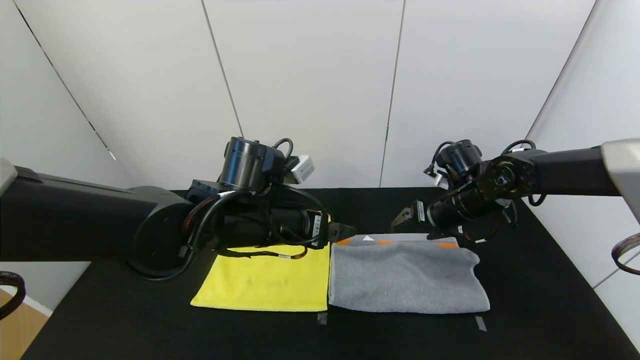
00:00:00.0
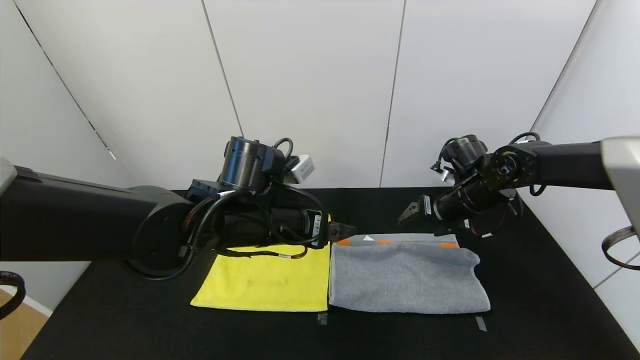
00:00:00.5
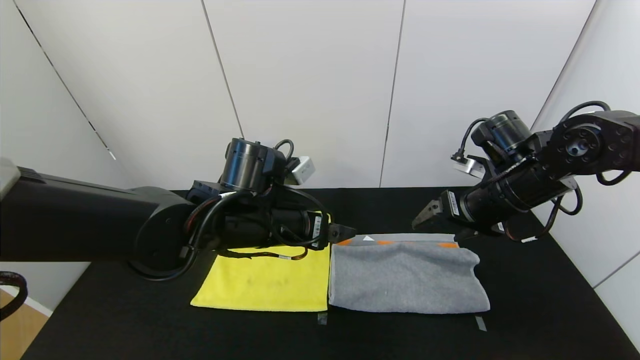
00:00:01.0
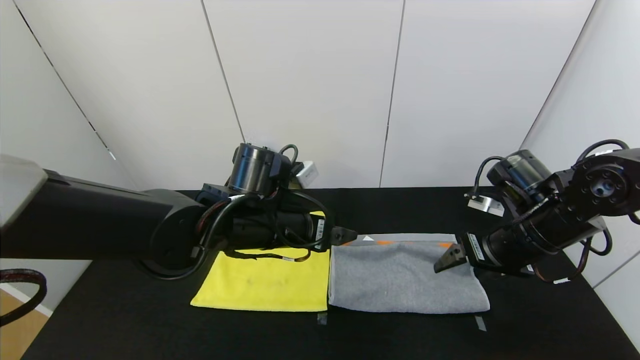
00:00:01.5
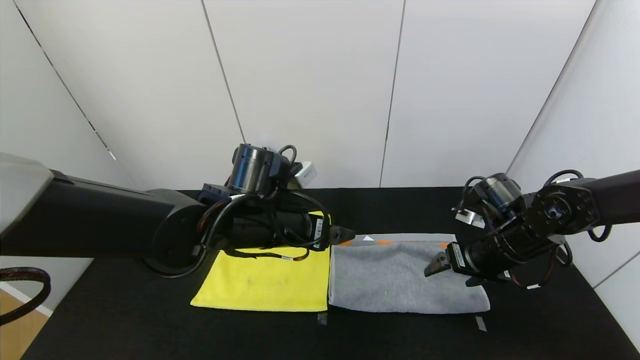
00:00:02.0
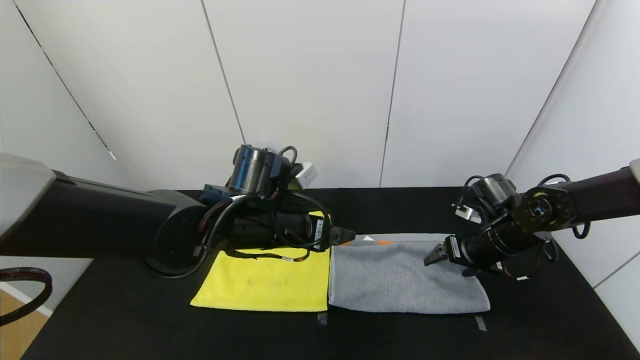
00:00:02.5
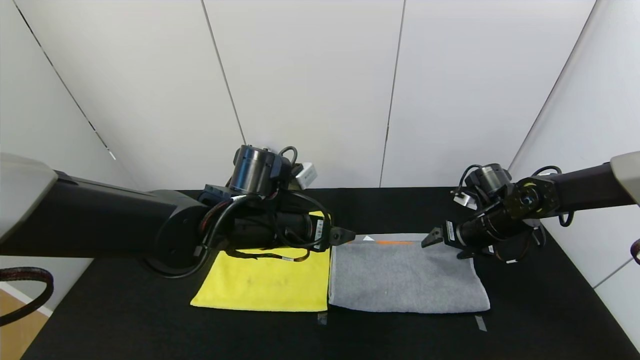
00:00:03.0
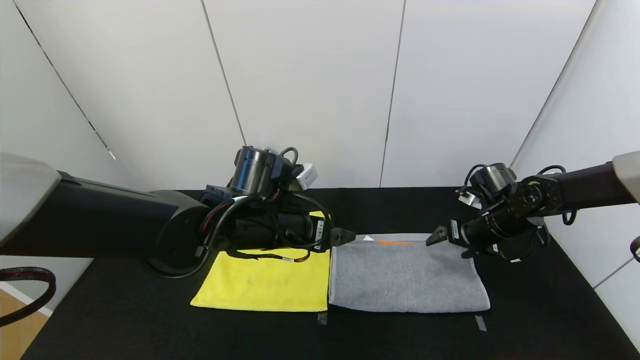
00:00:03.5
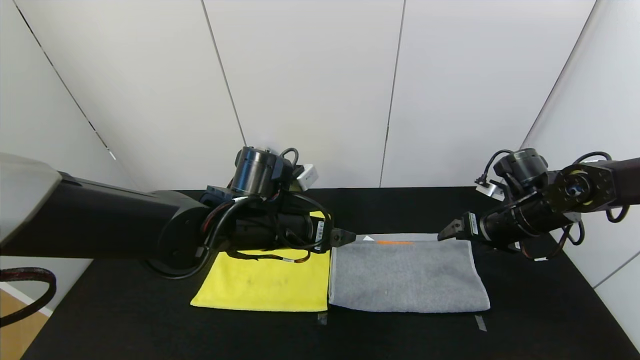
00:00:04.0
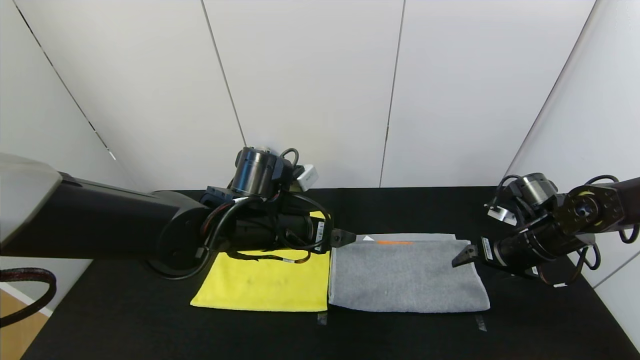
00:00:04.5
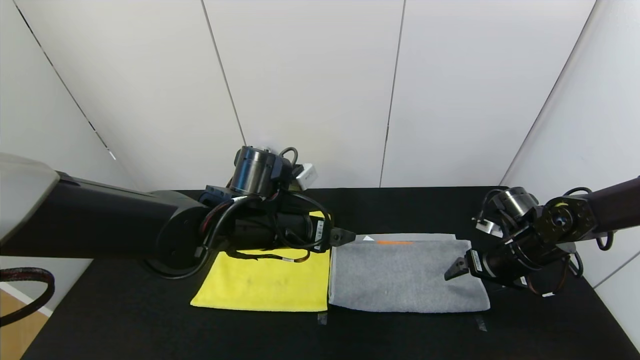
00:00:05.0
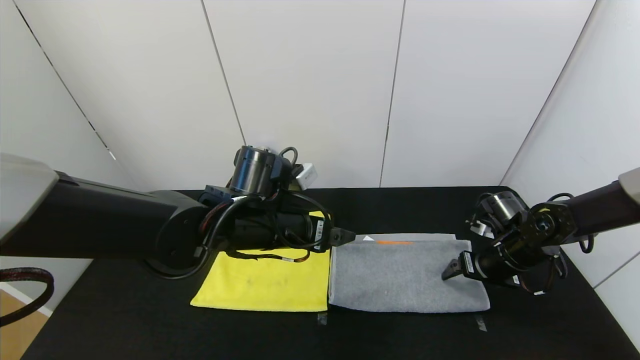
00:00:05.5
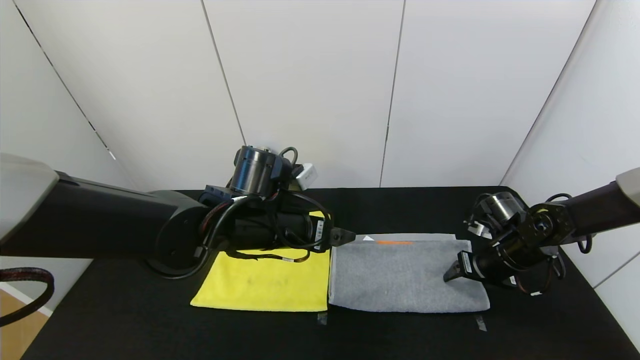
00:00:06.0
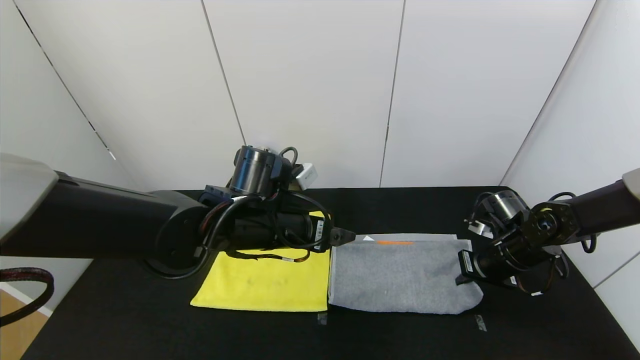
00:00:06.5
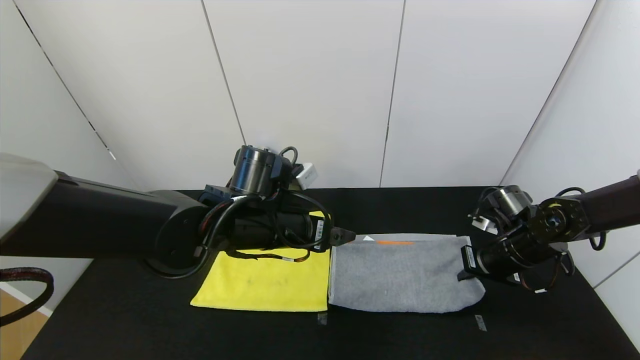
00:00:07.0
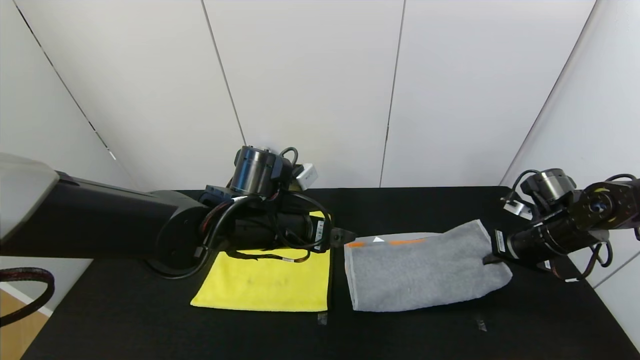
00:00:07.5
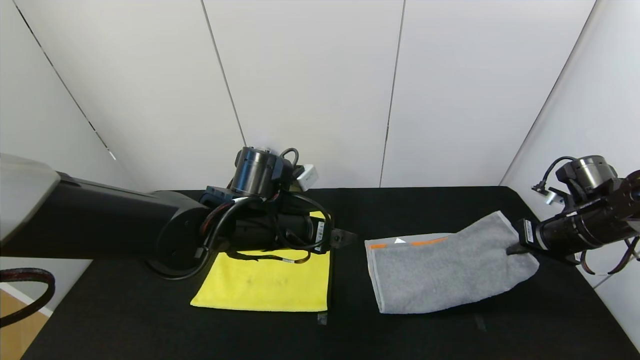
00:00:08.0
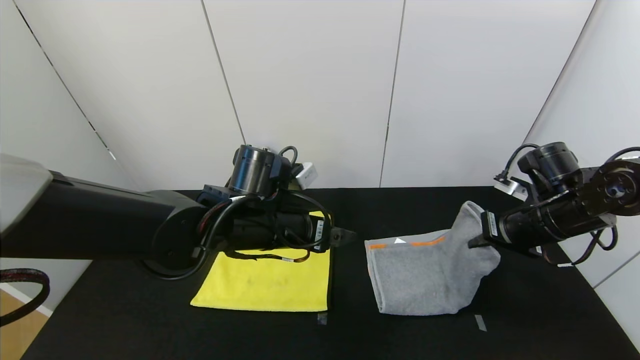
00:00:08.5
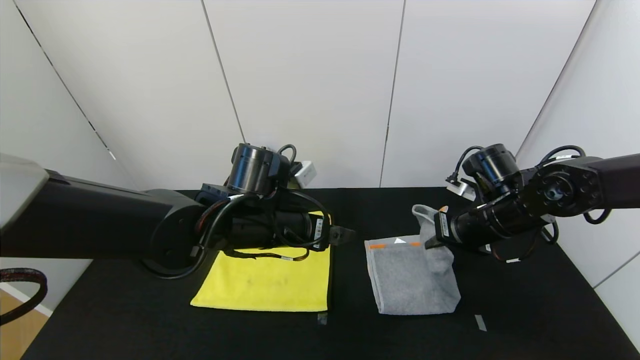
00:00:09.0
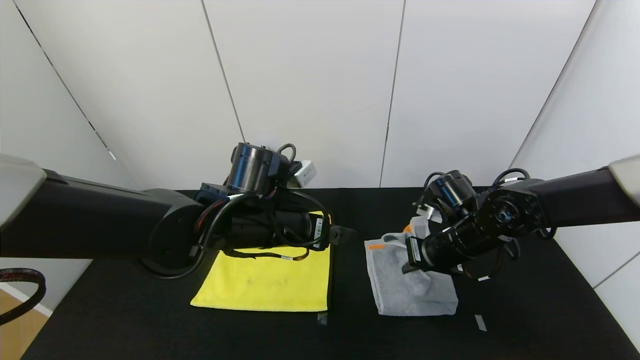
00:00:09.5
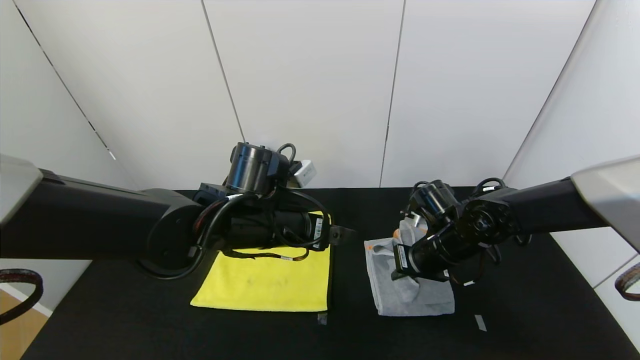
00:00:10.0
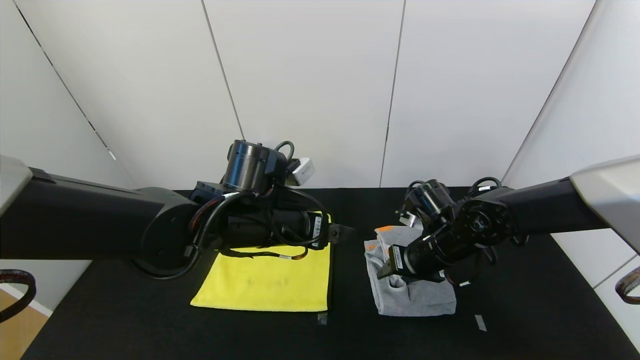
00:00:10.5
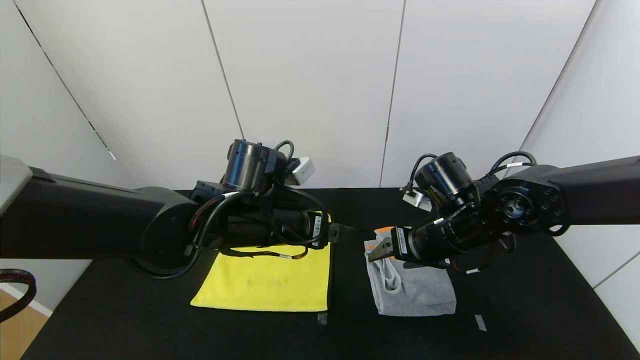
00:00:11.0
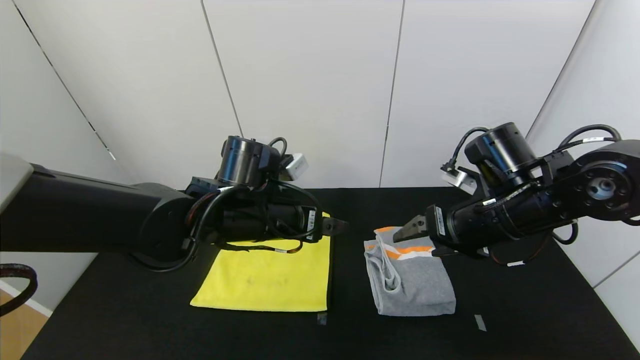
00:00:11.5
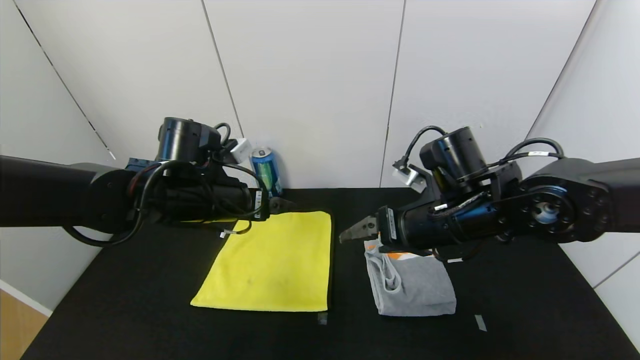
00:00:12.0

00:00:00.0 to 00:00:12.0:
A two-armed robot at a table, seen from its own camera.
Task of the whole recording: Use the gripper to fold the yellow towel and grey towel in half twice,then put the yellow towel on the grey towel.
Step, 00:00:00.0 to 00:00:04.0: Press the gray towel with the right gripper.
Step, 00:00:04.5 to 00:00:10.5: Fold the gray towel from right to left with right gripper.
00:00:00.0 to 00:00:02.0: The right gripper moves backward, roughly 5 cm.
00:00:02.0 to 00:00:04.0: The right gripper shifts by approximately 5 cm.
00:00:04.0 to 00:00:06.0: The right gripper moves downward, about 10 cm.
00:00:06.0 to 00:00:08.0: The right gripper shifts roughly 10 cm upward and to the right, and closes up.
00:00:08.0 to 00:00:10.0: The right gripper moves to the left, about 20 cm.
00:00:10.0 to 00:00:12.0: The left gripper moves to the left, roughly 10 cm. Meanwhile the right gripper travels upward and backward by roughly 10 cm, and opens.

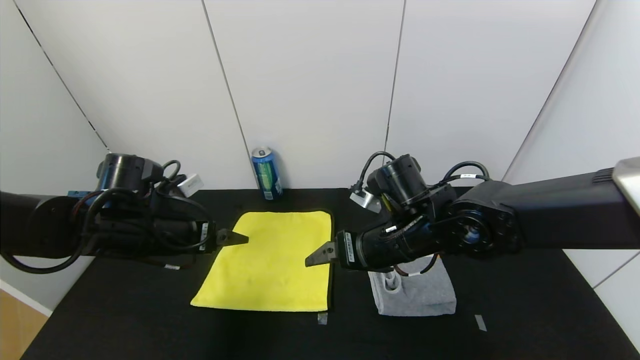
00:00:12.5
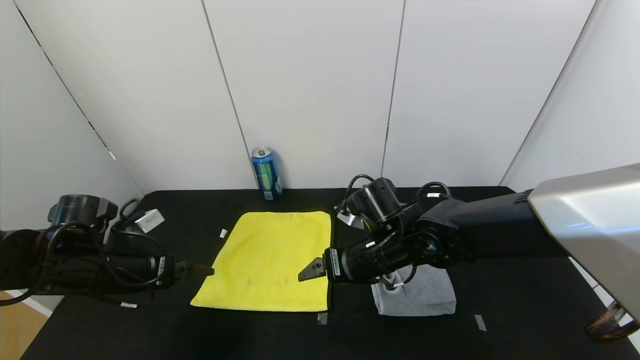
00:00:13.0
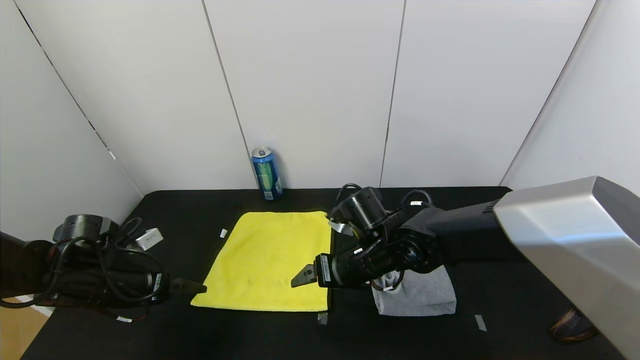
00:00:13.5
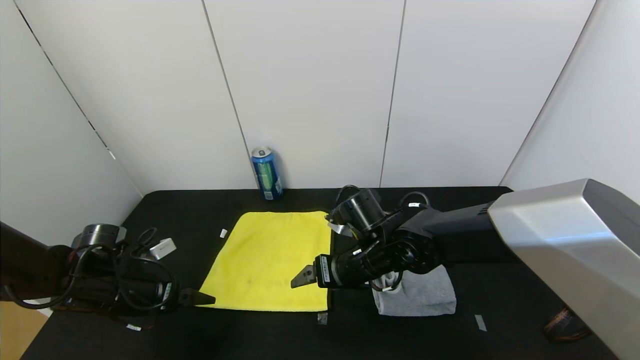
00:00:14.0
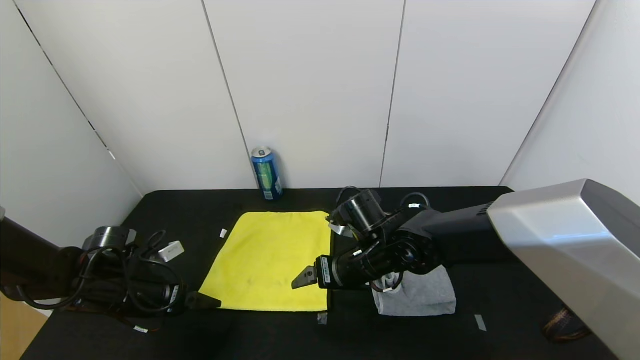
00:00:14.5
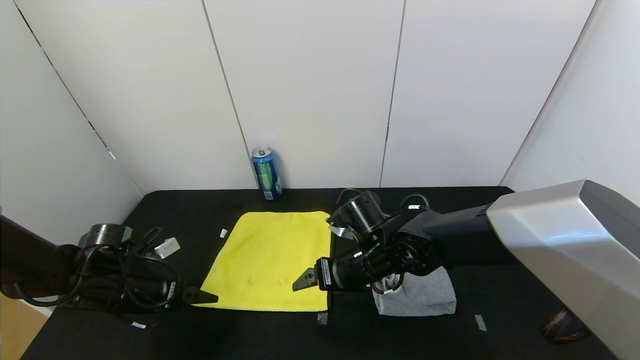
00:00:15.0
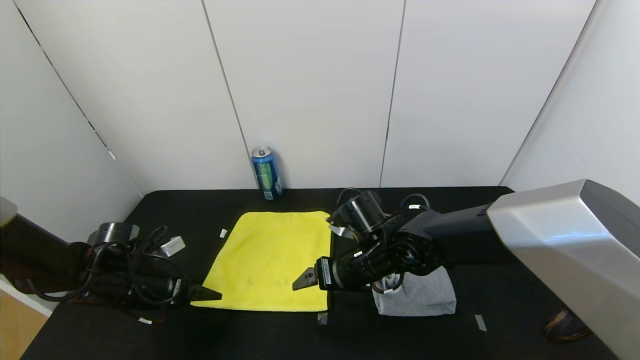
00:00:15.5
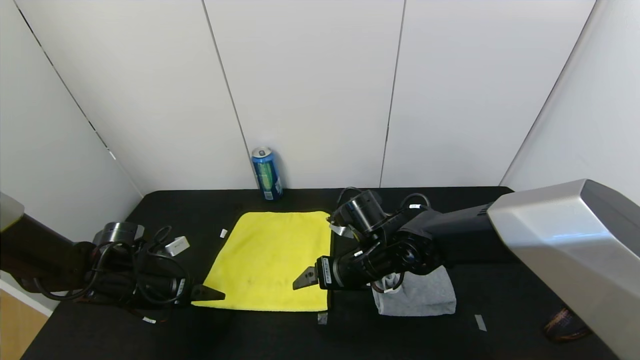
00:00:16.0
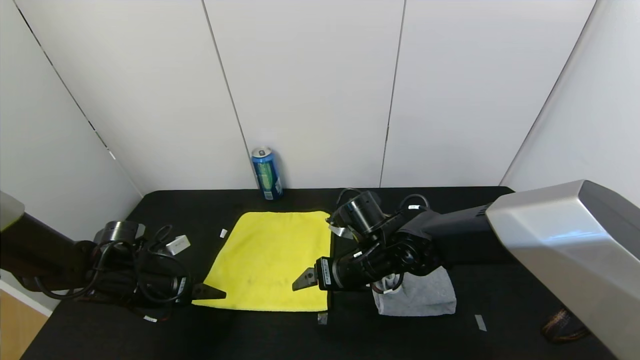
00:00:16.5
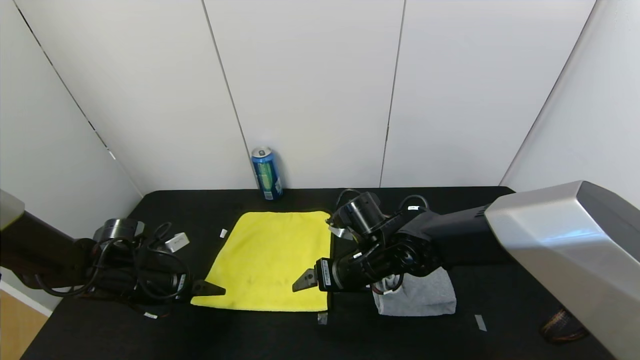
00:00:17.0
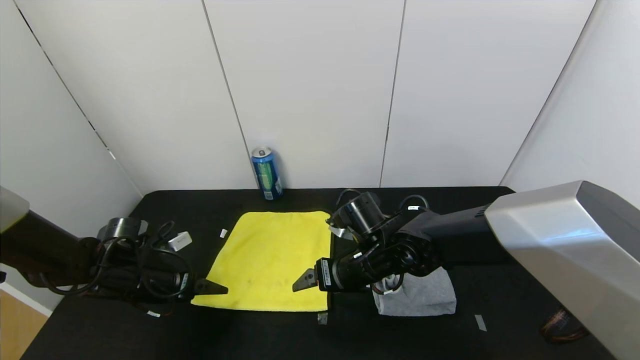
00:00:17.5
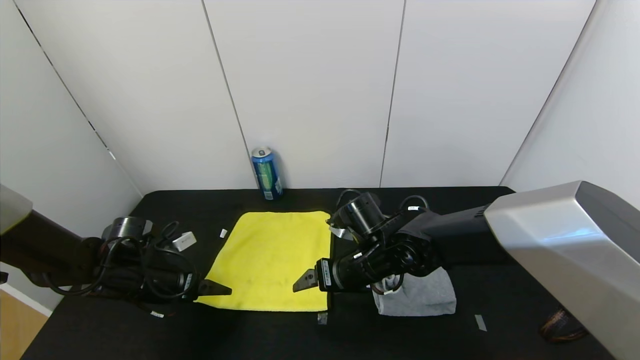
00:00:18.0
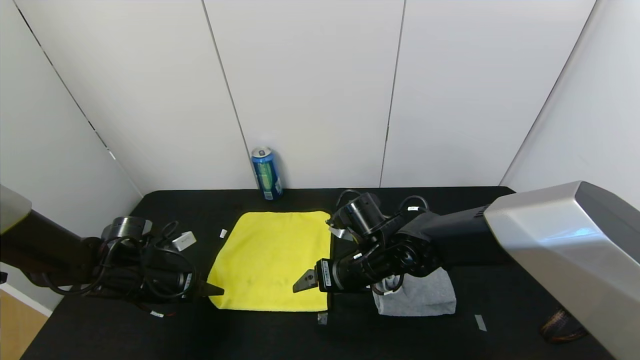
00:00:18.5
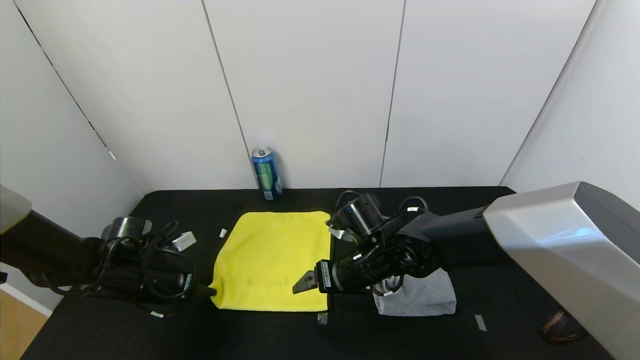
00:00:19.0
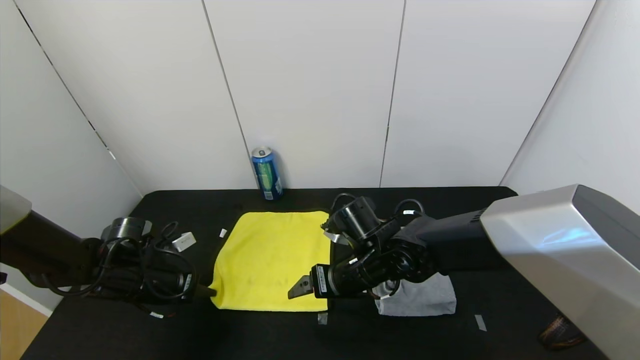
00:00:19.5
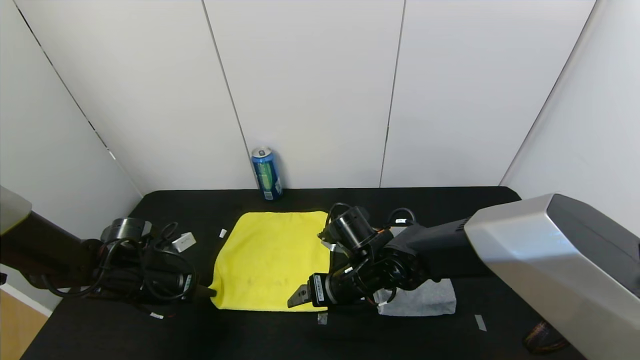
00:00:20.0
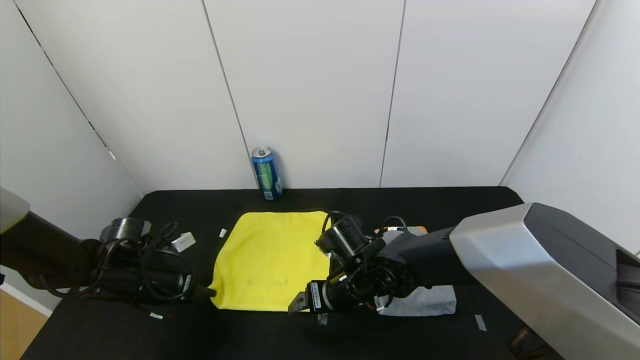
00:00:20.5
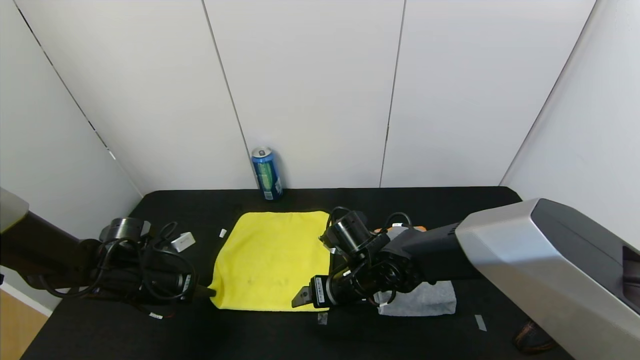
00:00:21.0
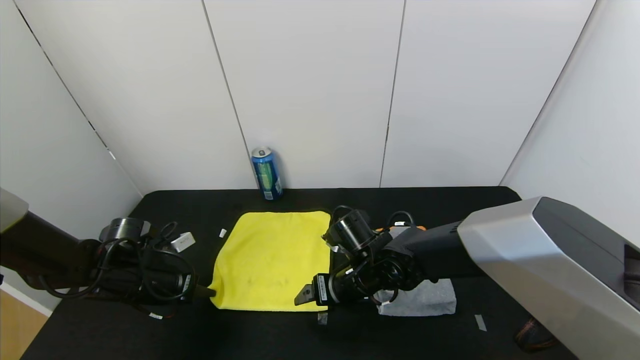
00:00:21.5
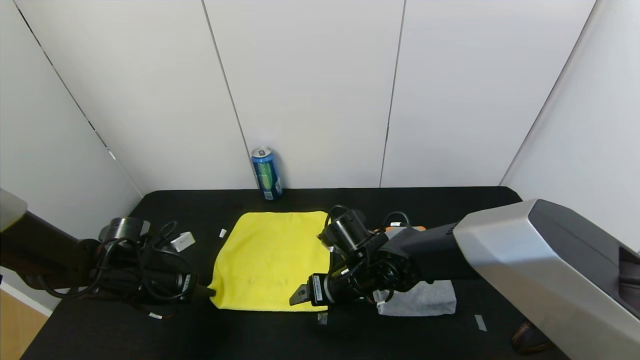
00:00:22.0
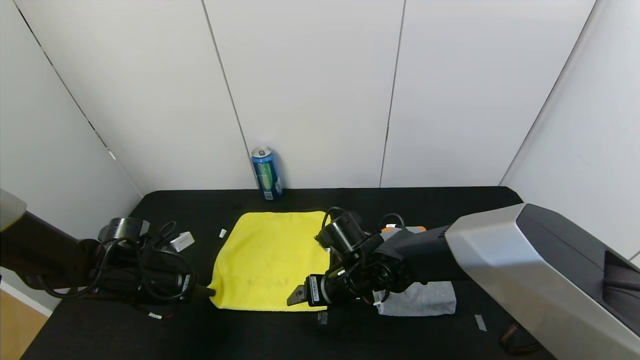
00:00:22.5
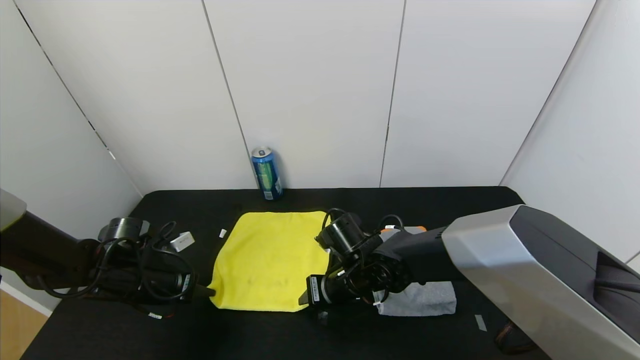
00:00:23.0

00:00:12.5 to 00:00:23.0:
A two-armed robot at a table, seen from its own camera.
Task of the whole recording: Use the gripper to fold the yellow towel and grey towel in half twice,then put the yellow towel on the grey towel.
00:00:12.5 to 00:00:14.5: The right gripper moves downward, about 5 cm, while the left gripper travels downward and to the left by some 15 cm.
00:00:14.5 to 00:00:16.5: There are only small adjustments of the grippers.
00:00:16.5 to 00:00:19.0: The left gripper closes.
00:00:19.0 to 00:00:21.0: The grippers stay close to where they were, moving slightly.
00:00:21.0 to 00:00:23.0: The right gripper closes its fingers.
